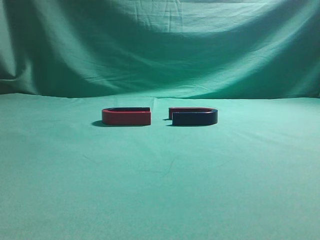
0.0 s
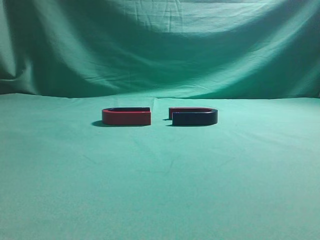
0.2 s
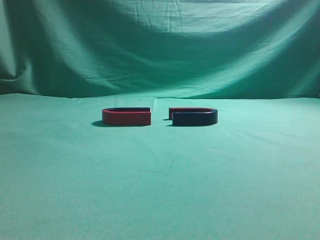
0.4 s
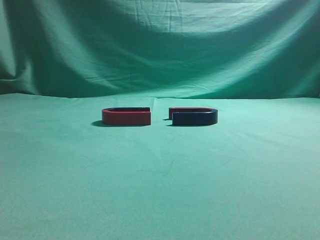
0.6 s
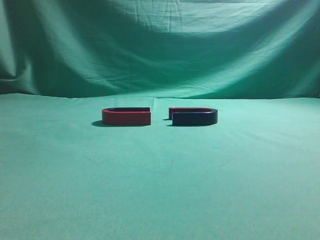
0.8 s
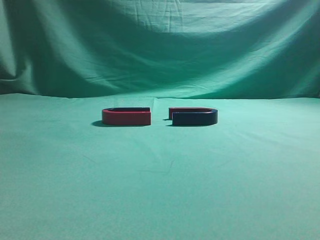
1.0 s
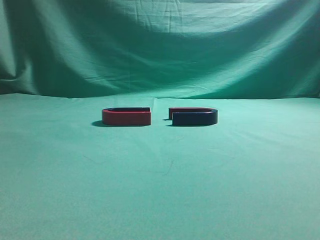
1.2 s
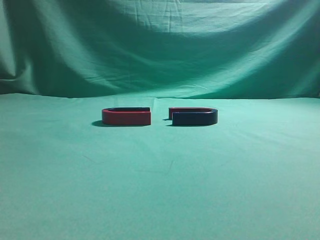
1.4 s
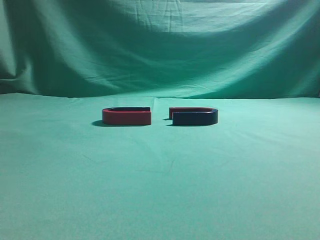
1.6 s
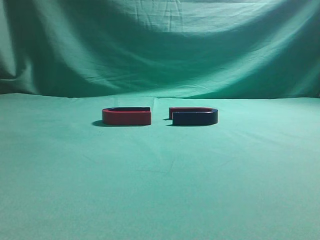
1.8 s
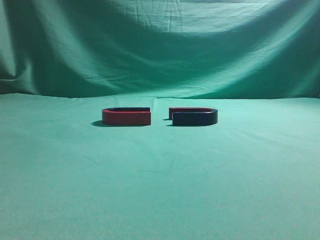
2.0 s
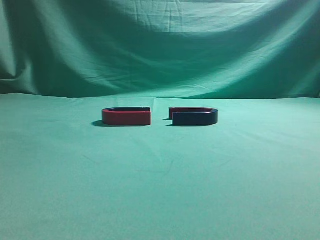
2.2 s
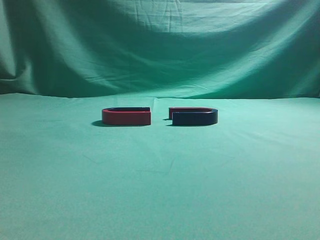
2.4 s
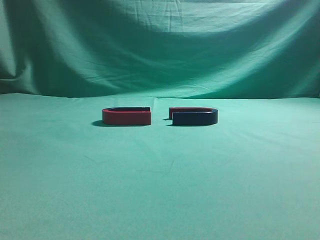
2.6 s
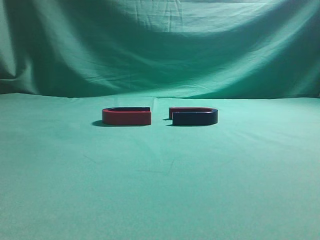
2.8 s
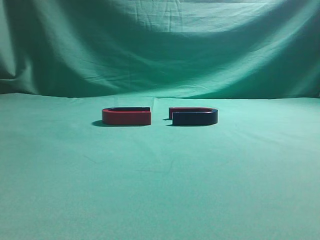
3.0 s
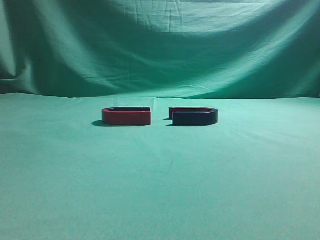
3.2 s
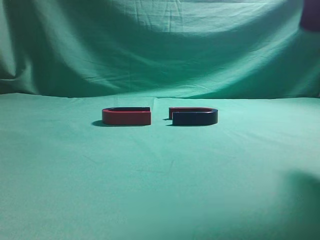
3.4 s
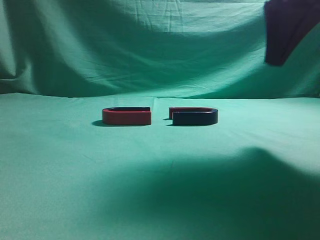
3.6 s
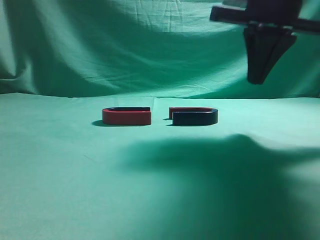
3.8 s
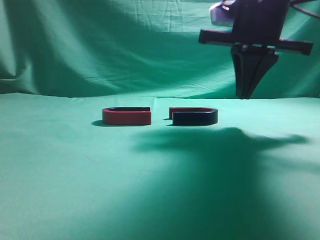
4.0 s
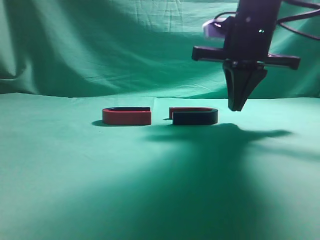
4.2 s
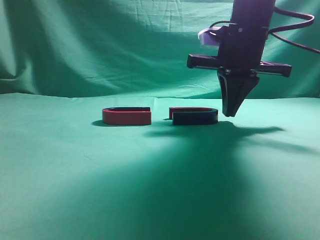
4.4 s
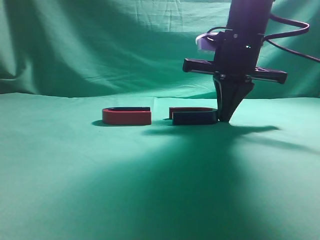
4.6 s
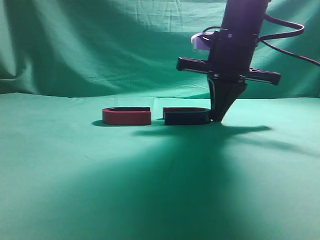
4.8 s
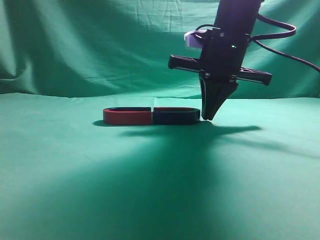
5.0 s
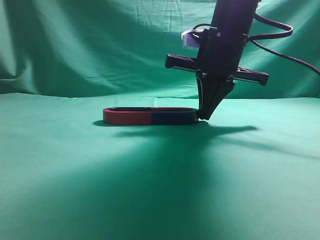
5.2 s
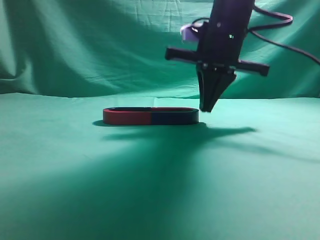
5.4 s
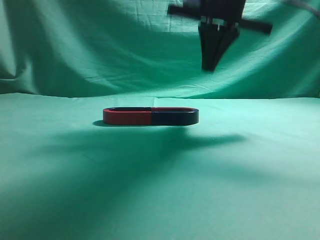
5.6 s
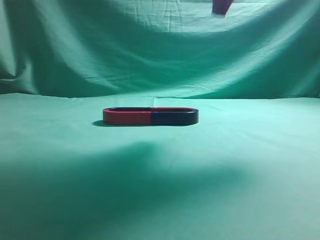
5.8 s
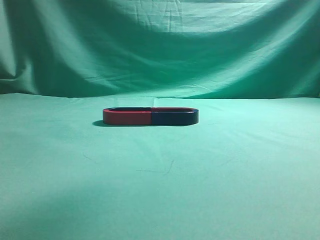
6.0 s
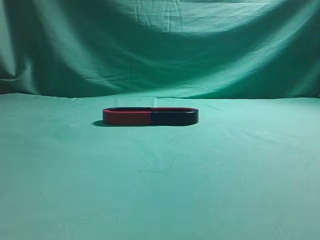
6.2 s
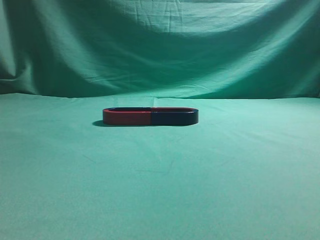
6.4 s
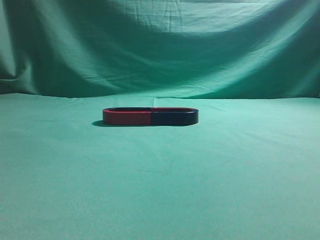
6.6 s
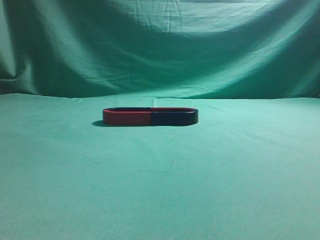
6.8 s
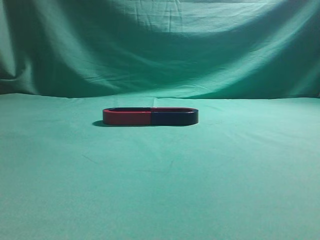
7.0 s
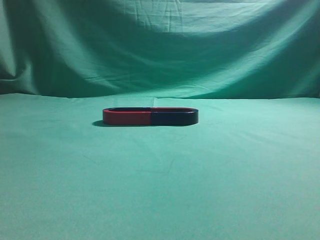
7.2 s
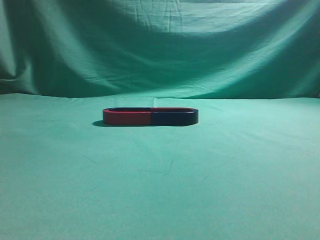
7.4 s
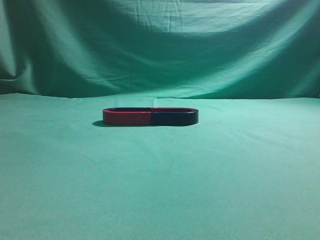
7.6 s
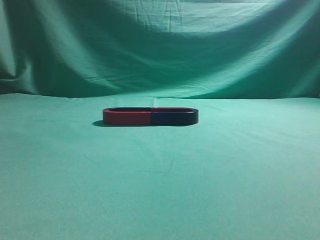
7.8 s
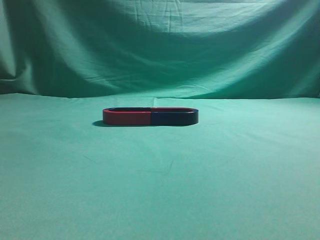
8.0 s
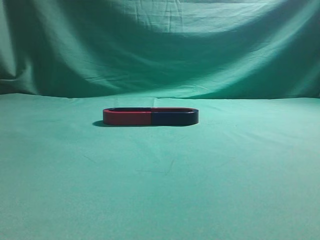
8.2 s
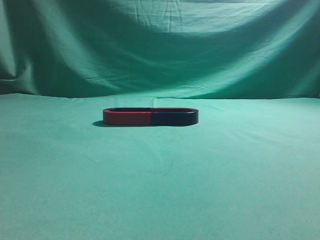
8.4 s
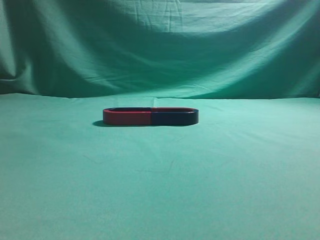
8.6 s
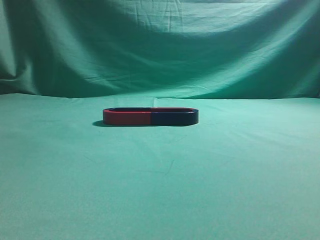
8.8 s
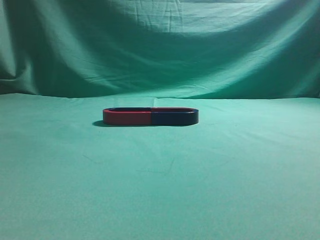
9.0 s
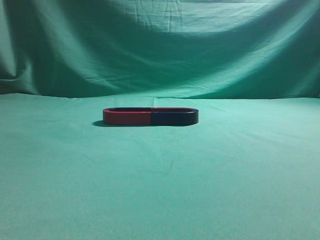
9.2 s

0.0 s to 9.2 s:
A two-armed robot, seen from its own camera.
Task of the whole recording: push the magnet on the table from its original position to another position.
Step, 0.0 to 5.4 s: Push the magnet on the right to connect the magnet on the left.
3.0 to 4.6 s: The right gripper shifts some 30 cm forward, downward and to the left.
4.6 to 6.2 s: The right gripper travels upward and backward by about 30 cm.
